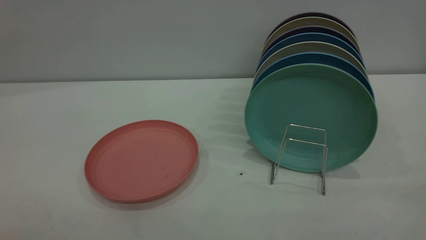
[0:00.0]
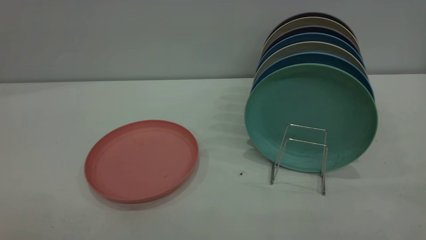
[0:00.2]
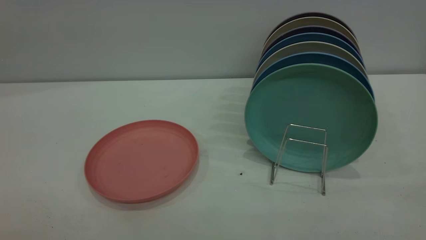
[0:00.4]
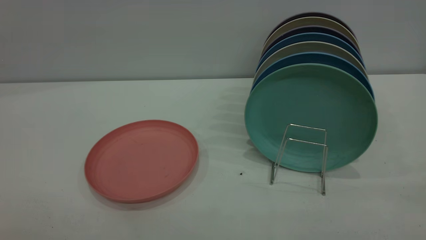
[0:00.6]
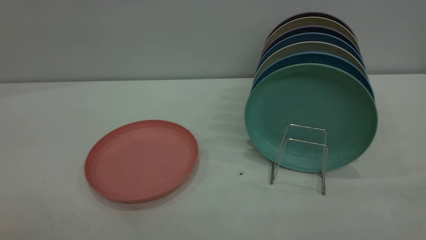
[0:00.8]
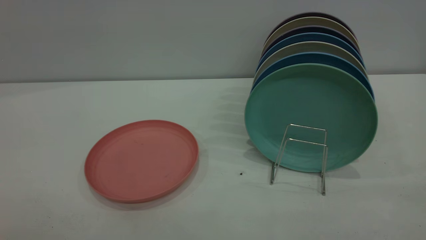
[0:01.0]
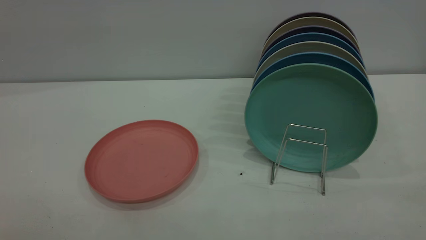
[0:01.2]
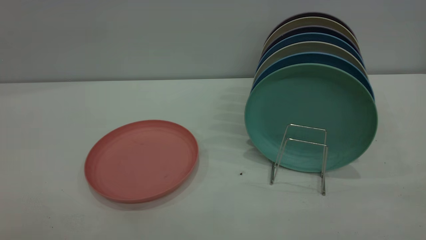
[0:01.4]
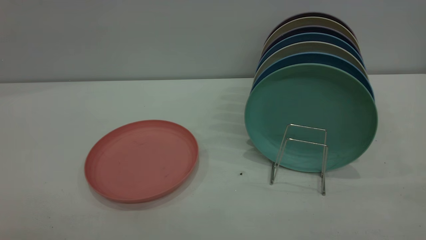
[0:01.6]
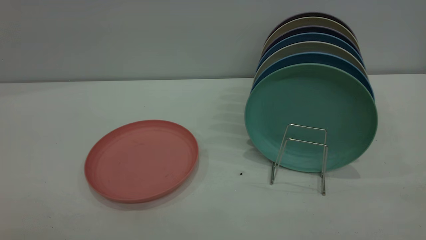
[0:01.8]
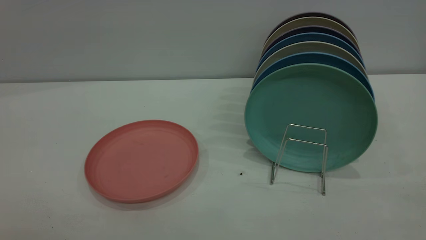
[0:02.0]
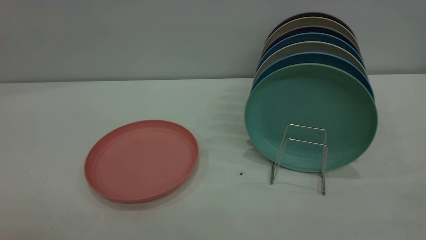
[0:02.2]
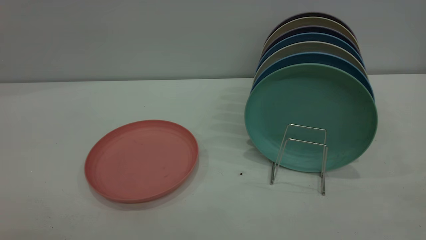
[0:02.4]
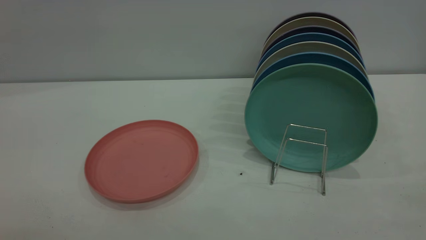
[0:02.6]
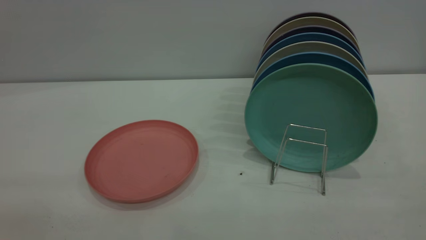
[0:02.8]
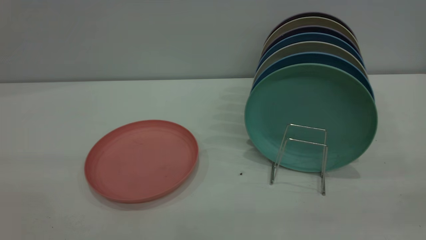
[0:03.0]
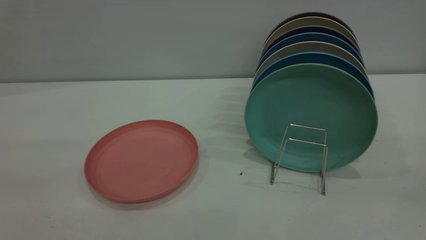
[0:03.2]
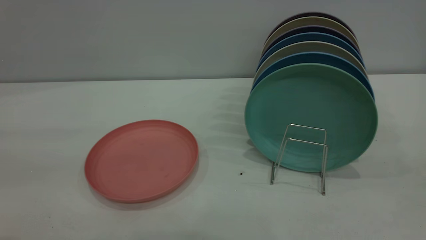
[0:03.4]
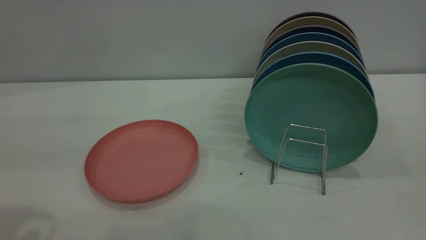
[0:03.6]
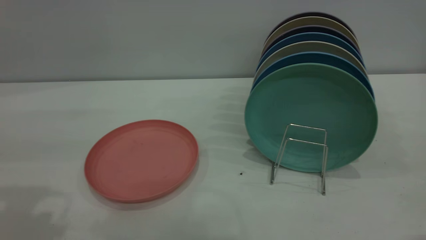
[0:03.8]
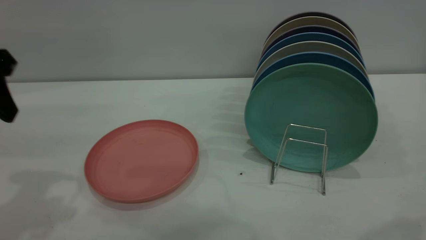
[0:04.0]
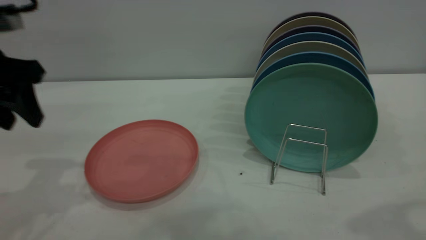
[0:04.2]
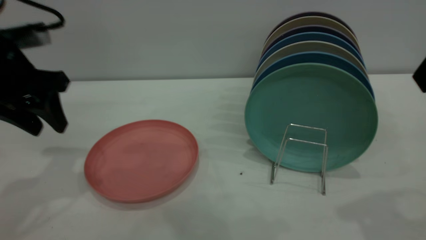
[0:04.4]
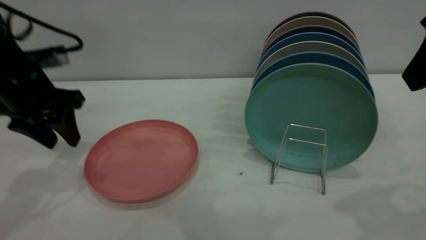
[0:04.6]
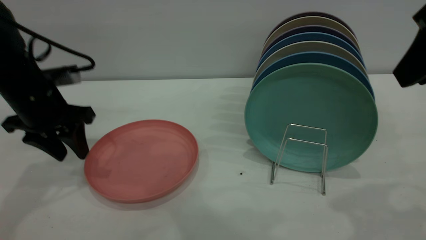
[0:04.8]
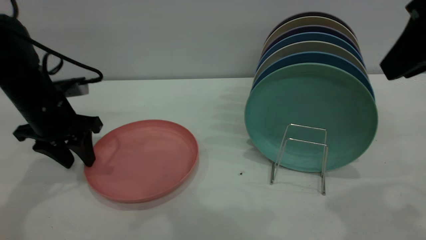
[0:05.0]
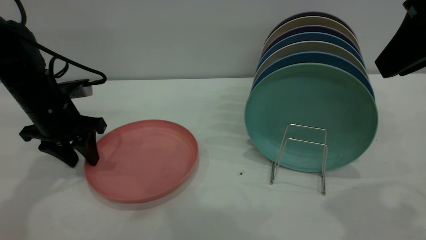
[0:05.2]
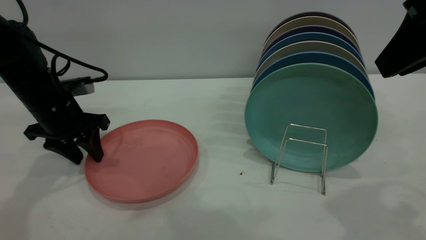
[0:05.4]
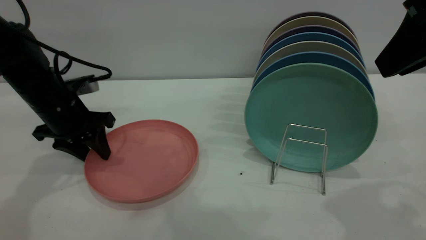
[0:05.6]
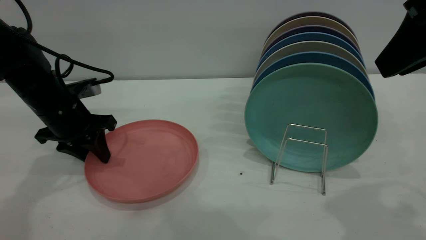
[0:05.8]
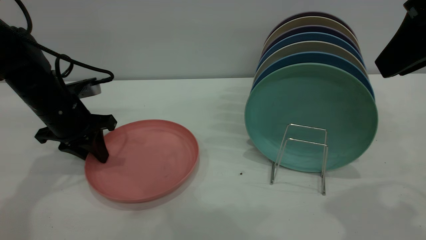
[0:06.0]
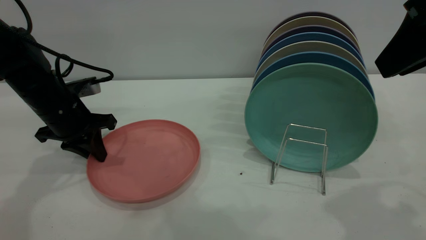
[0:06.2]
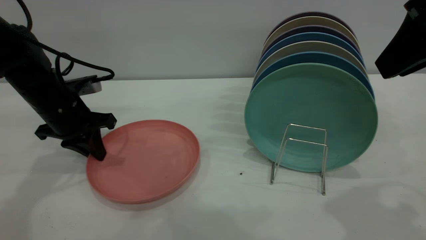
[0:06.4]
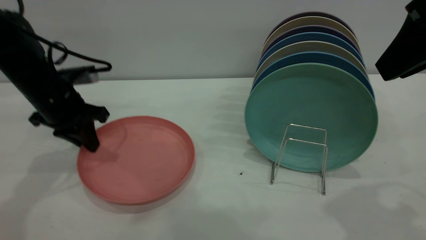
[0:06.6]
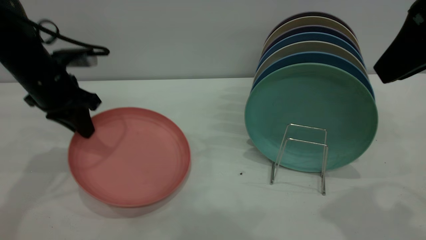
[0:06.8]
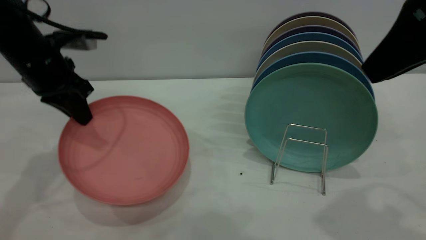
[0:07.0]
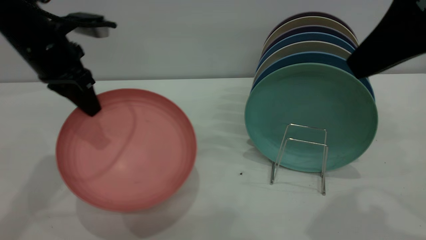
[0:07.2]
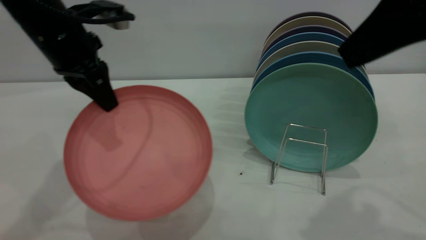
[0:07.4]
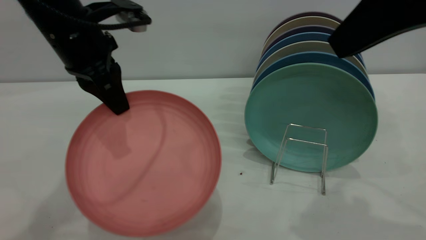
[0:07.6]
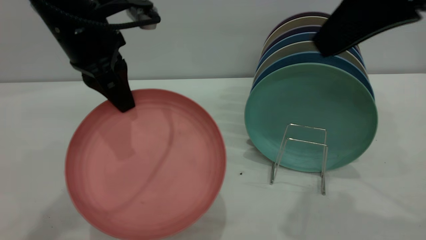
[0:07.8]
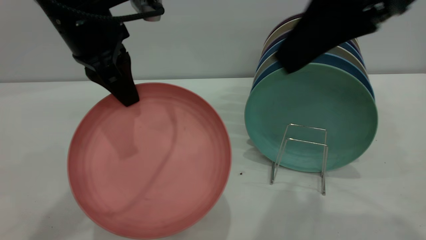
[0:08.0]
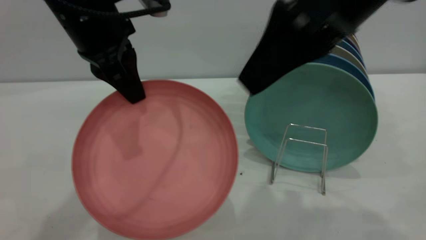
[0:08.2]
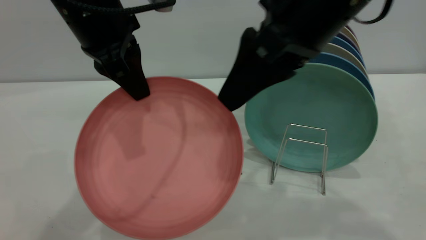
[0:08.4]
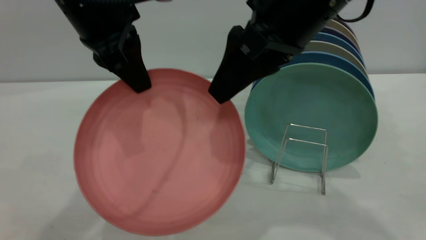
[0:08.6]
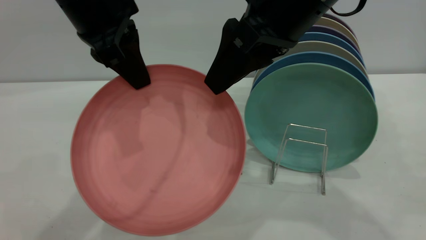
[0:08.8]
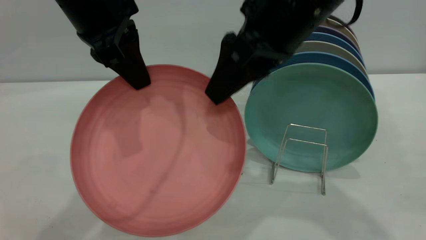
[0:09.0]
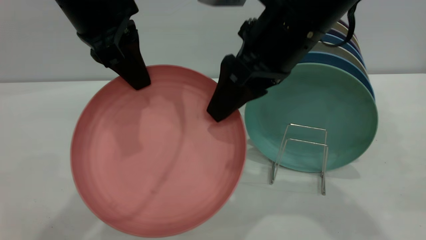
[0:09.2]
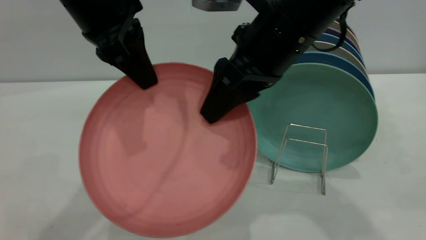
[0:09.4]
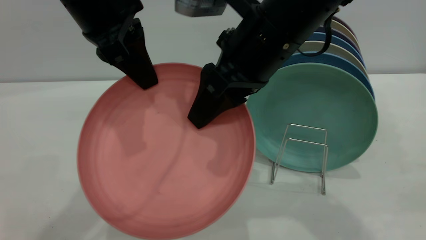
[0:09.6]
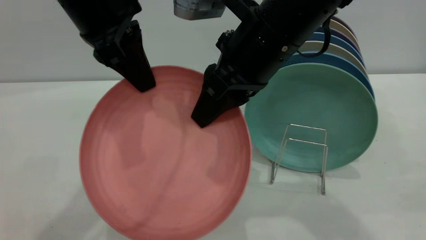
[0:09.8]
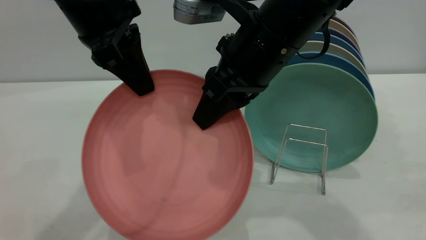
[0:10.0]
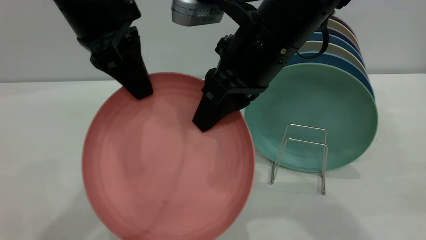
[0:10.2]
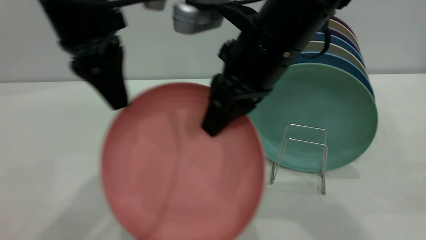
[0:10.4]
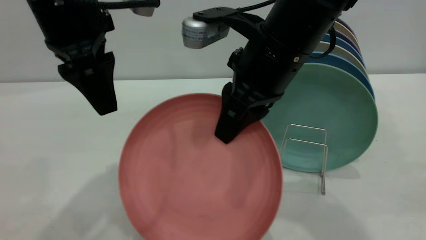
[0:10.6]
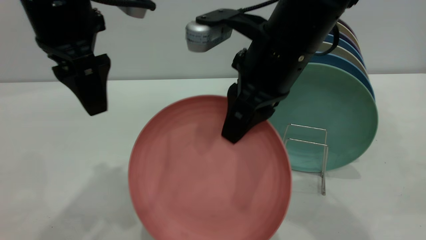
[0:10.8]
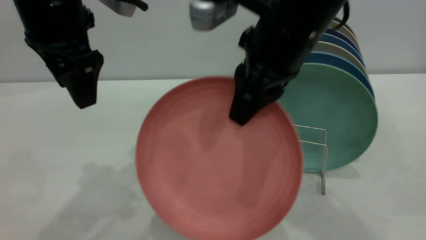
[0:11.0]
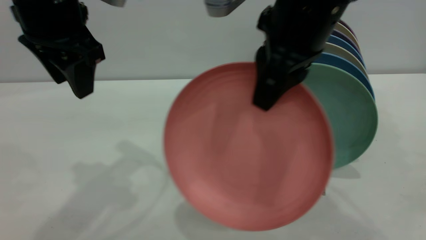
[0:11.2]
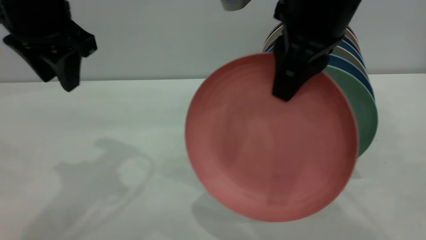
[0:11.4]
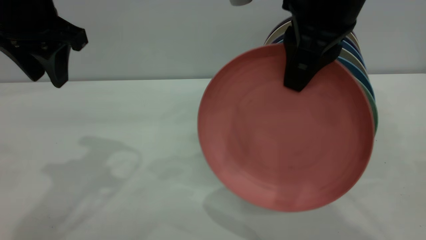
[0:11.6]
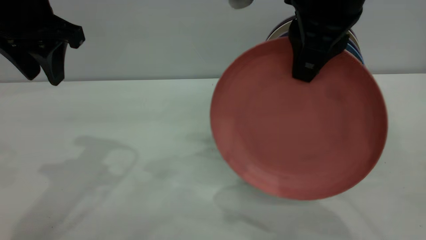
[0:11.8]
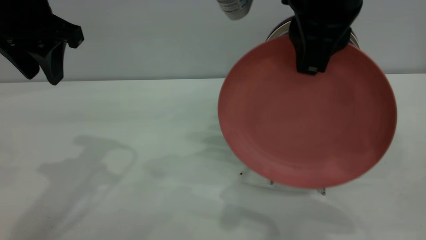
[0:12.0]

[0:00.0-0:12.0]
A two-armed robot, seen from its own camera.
Task of the whole recording: put the plate on the plate rack.
Step, 0:00.0 to 0:06.6: Pick up the plate with the left gripper.
Step, 0:06.8 to 0:10.4: Pass the plate from the left gripper to the right gripper.
0:03.0 to 0:04.4: The left gripper shifts about 30 cm forward and downward.
0:04.4 to 0:06.0: The left gripper travels downward and forward by roughly 10 cm, and closes its fingers.
0:06.0 to 0:07.6: The left gripper shifts approximately 15 cm upward and to the right.
0:07.6 to 0:09.0: The left gripper is displaced upward by about 5 cm, while the right gripper heads to the left, forward and downward, covering roughly 15 cm, and opens.
0:09.0 to 0:10.4: The left gripper opens its fingers. The right gripper closes.
0:10.4 to 0:12.0: The left gripper moves to the left, roughly 10 cm, and opens up; the right gripper is displaced upward by about 10 cm.

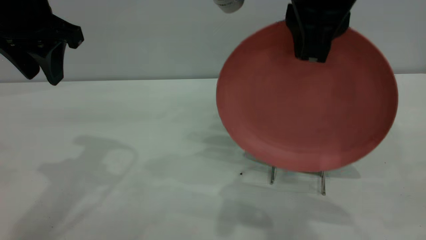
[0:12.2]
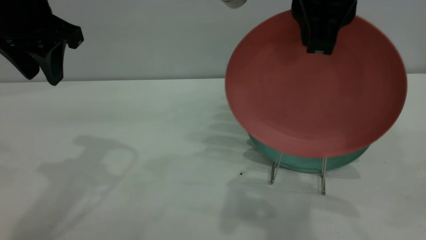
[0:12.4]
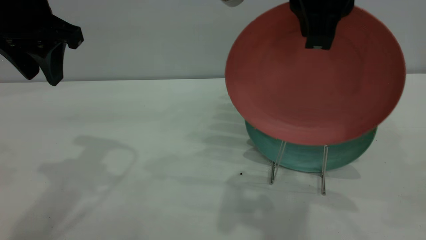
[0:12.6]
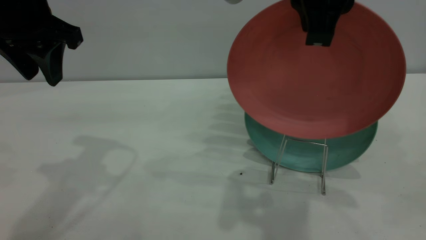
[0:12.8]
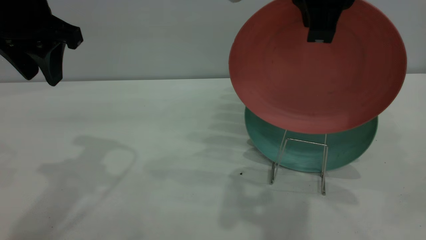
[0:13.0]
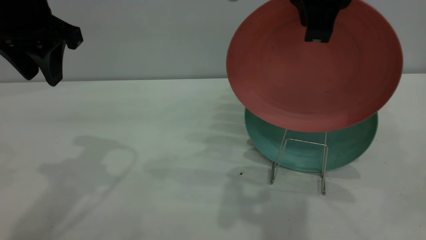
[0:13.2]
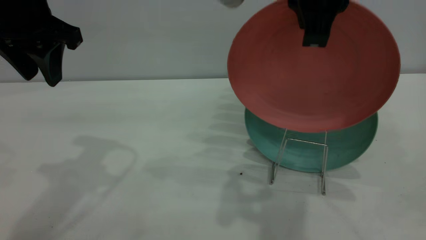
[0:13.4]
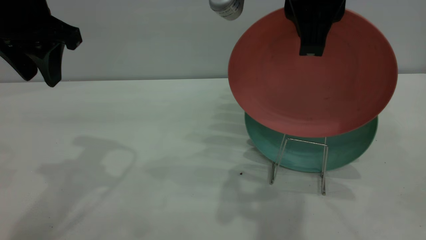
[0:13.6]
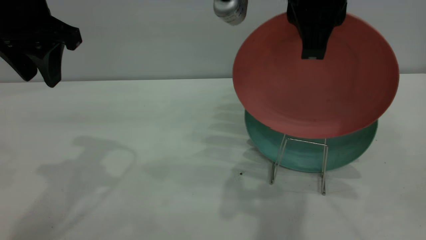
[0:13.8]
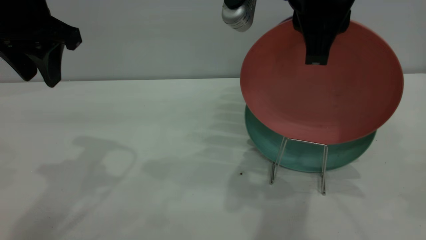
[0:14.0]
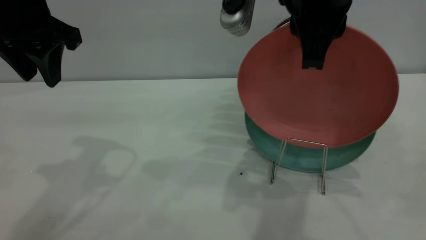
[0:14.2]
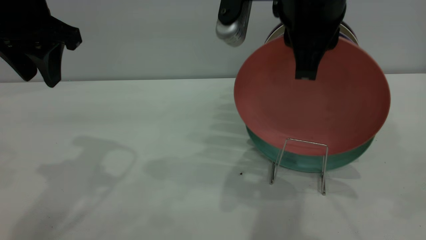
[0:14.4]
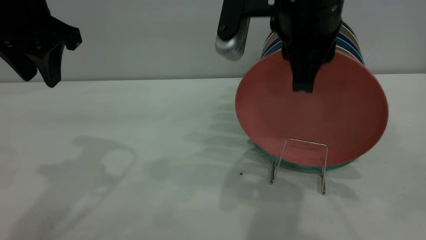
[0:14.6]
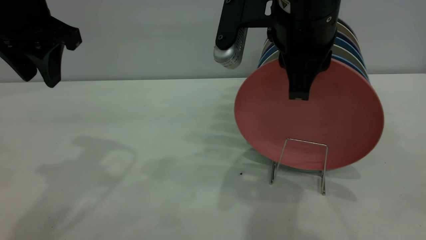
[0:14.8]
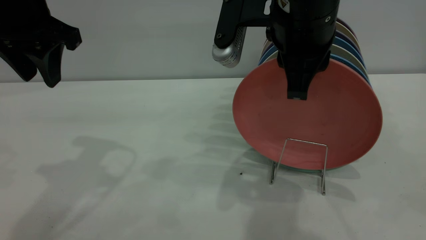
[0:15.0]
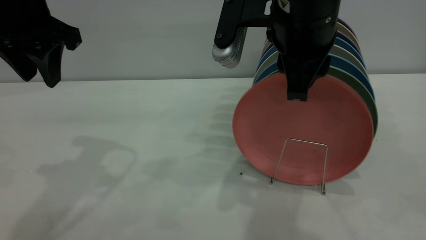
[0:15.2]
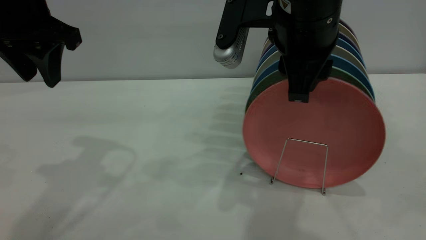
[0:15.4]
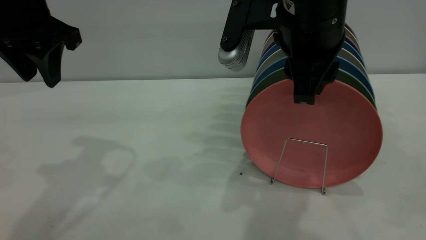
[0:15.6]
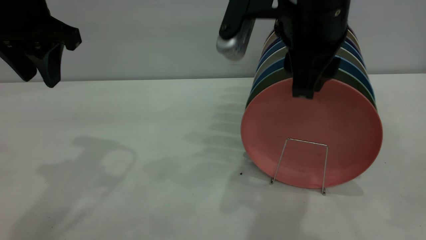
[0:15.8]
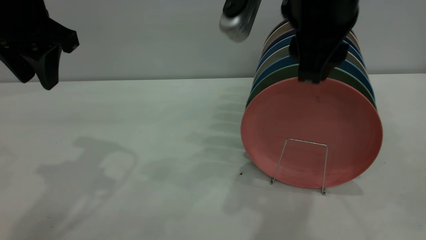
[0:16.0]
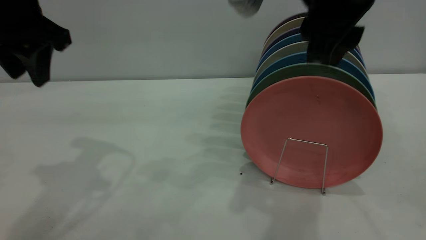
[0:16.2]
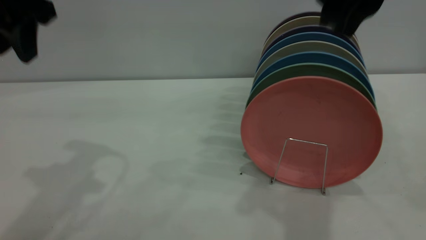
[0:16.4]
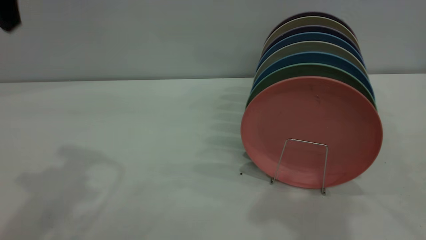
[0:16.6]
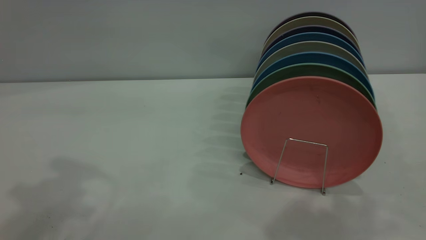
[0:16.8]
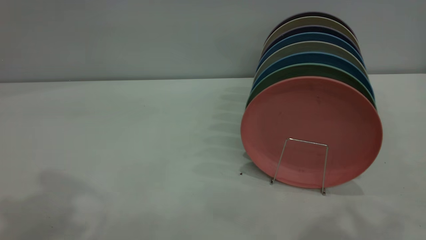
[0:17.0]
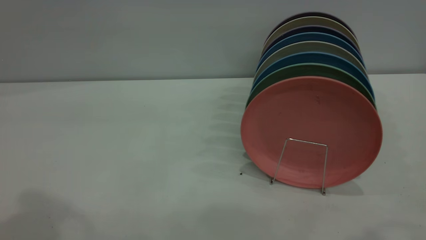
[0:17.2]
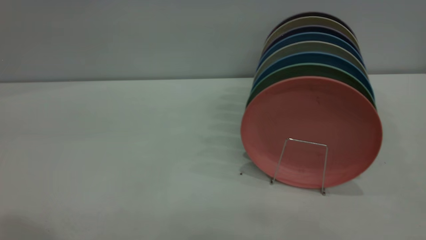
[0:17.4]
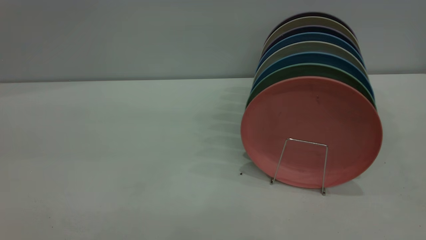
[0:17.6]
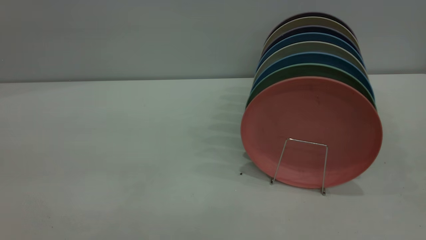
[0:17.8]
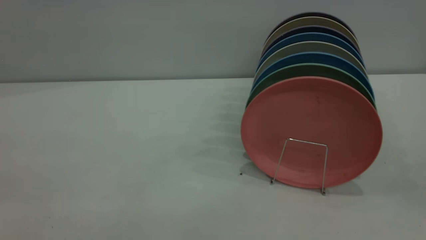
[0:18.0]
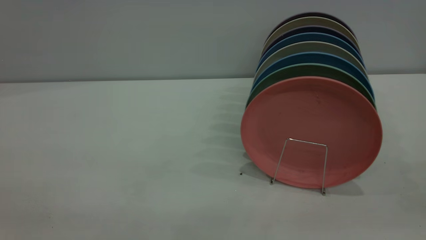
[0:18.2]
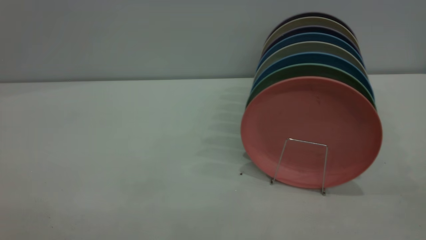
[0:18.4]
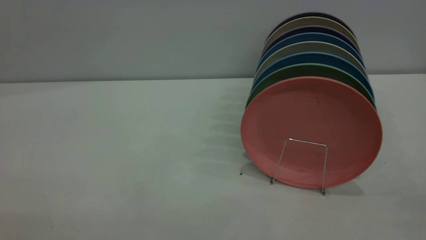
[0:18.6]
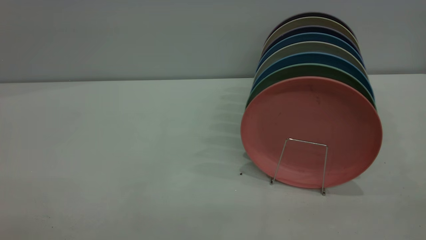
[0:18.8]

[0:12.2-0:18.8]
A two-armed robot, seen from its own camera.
Task of the whole recording: put the plate on the plate rack.
Step, 0:12.2 to 0:16.4: Place the plate on the shelf.
0:12.2 to 0:13.8: The grippers stay close to where they were, moving slightly.
0:13.8 to 0:15.4: The right gripper shifts approximately 5 cm downward, and opens up.
0:15.4 to 0:17.2: The left gripper goes approximately 20 cm upward and backward; the right gripper goes roughly 30 cm upward, backward and to the right.
